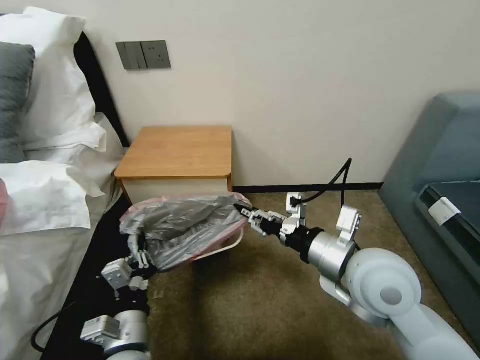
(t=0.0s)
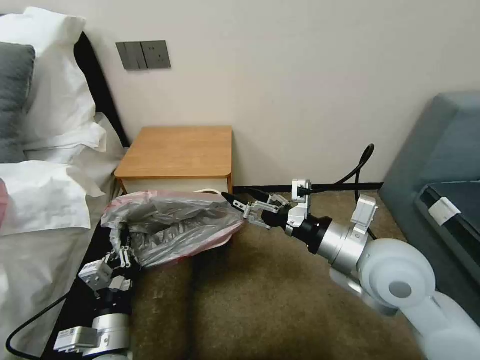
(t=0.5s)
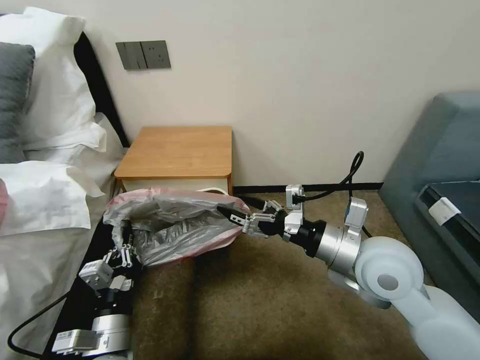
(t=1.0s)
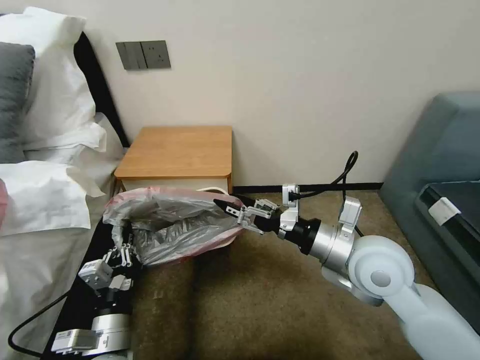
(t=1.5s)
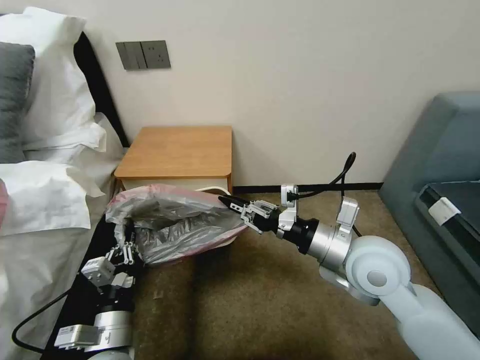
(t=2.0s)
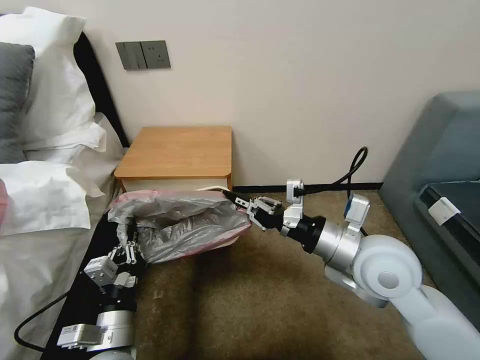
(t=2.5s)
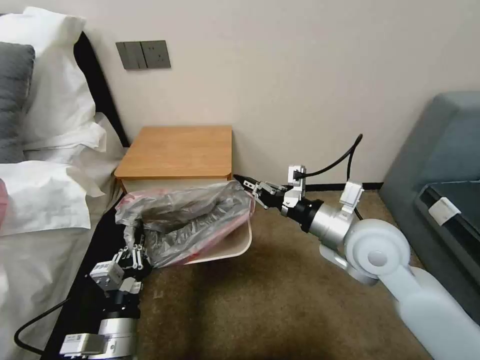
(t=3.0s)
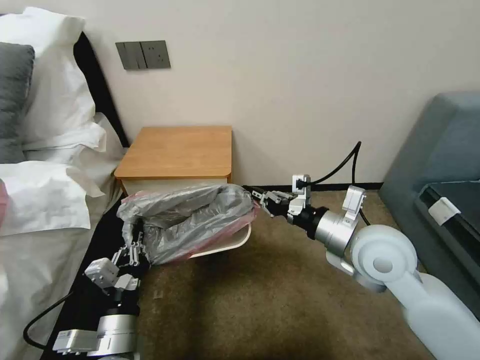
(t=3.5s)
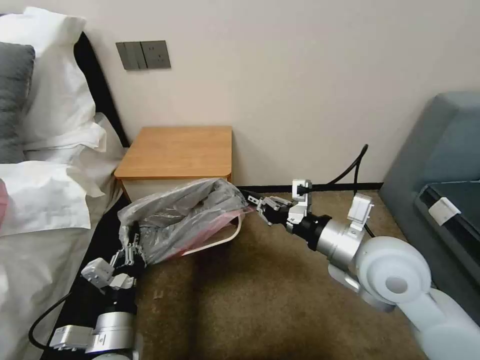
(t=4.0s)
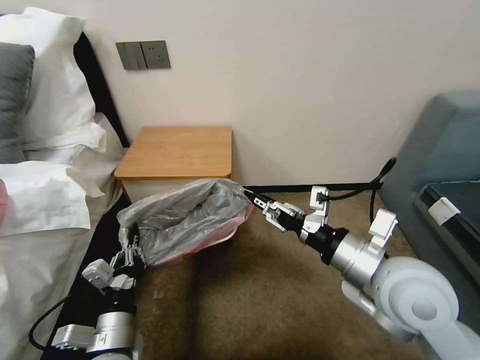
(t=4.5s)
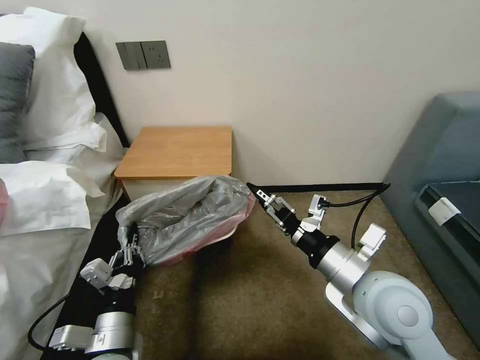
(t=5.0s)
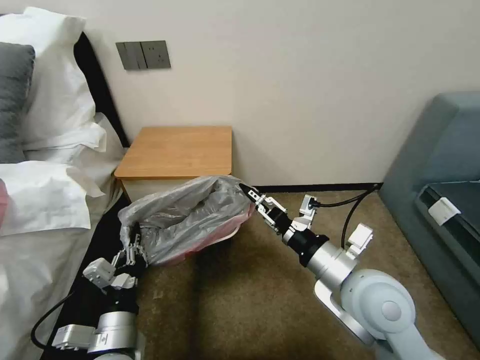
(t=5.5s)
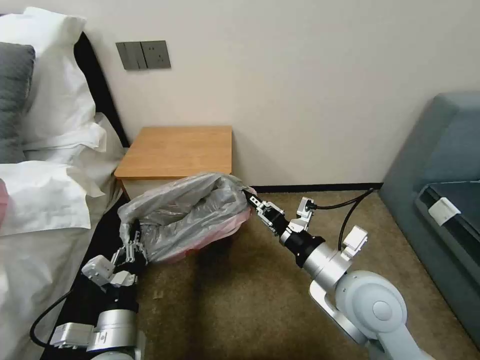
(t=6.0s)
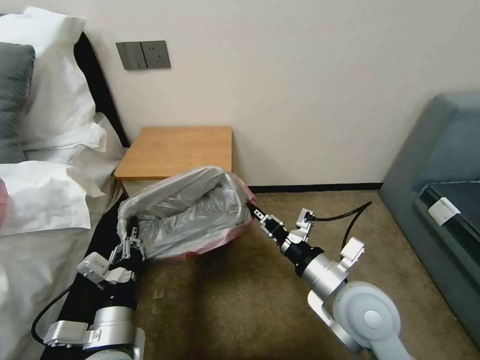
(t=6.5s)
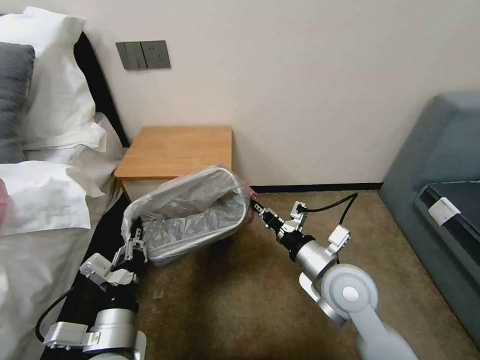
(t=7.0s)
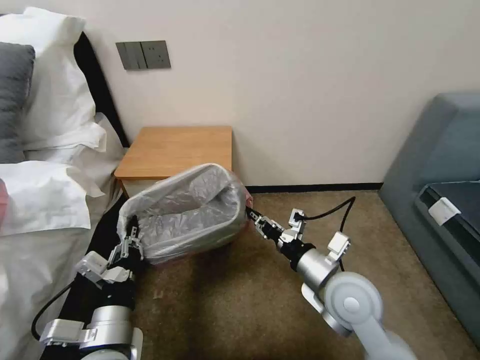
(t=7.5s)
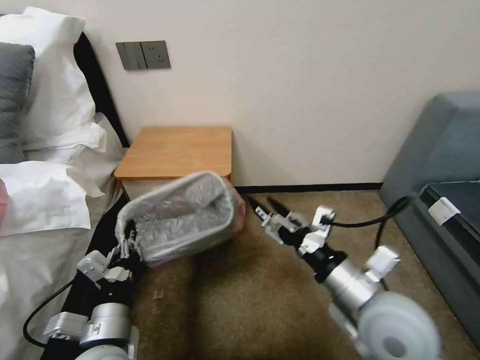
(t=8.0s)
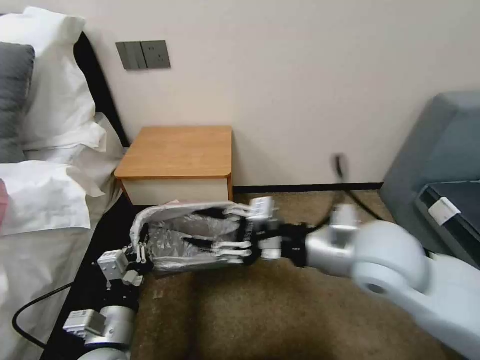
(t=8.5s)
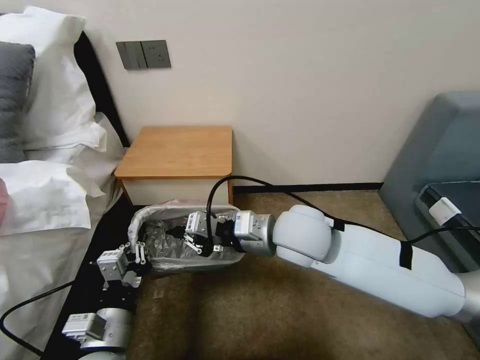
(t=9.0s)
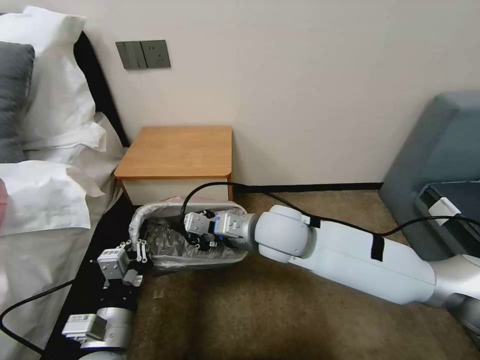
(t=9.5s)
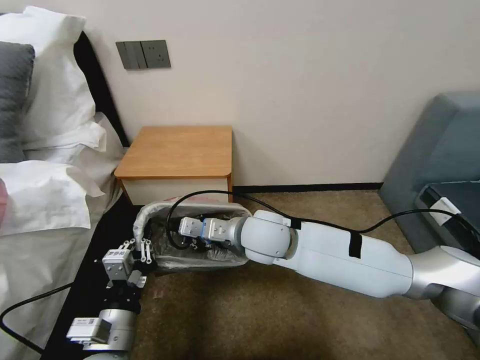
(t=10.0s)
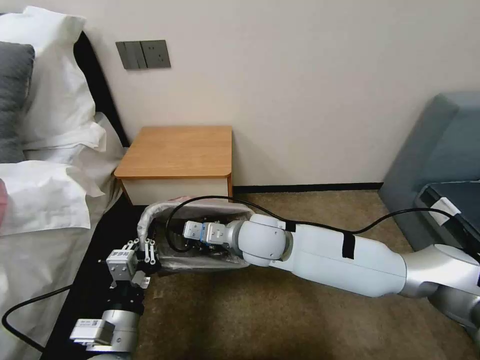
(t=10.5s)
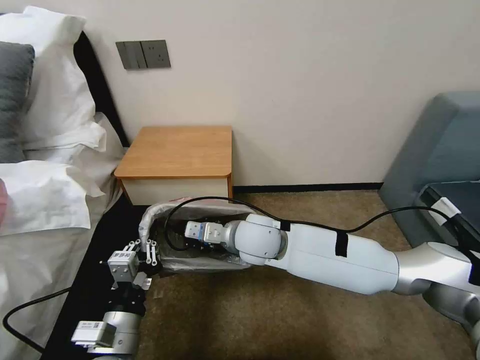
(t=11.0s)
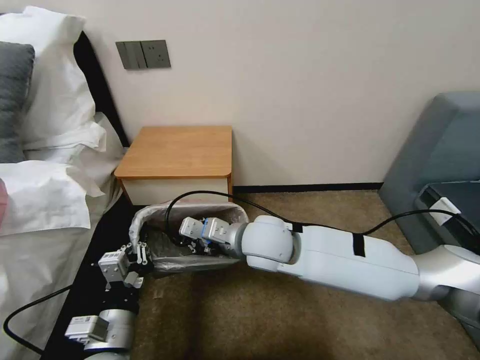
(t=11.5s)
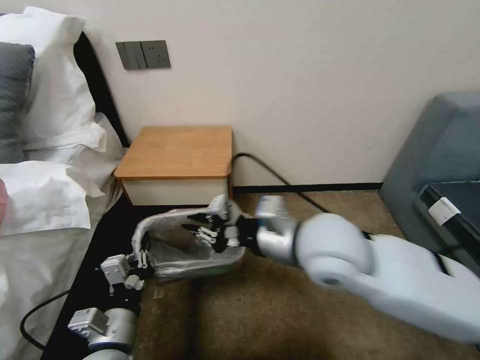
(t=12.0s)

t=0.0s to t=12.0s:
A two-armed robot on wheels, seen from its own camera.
Task of the whole recording: Pick up the garbage bag from the table and place it over the trash can.
t=0.0s to t=2.0s: The right gripper opens, then closes again.
t=2.0s to t=4.0s: There are only small adjustments of the grippers.
t=4.0s to t=6.0s: The right gripper shifts by about 5 cm, and opens, then closes again.
t=6.0s to t=8.0s: The right gripper opens up.
t=8.0s to t=10.0s: The right gripper travels to the left and forward by about 25 cm, and closes.
t=10.0s to t=12.0s: The right gripper shifts some 15 cm to the right, upward and backward.

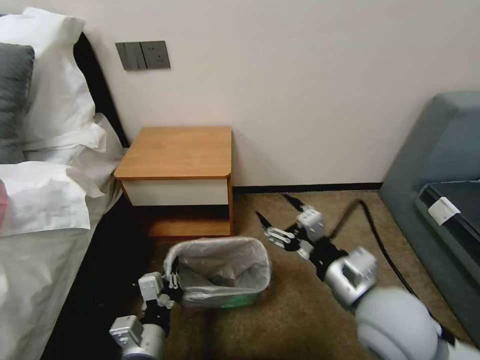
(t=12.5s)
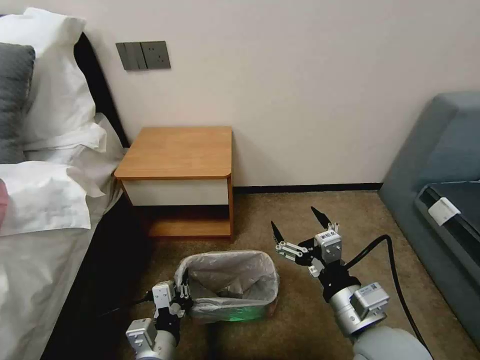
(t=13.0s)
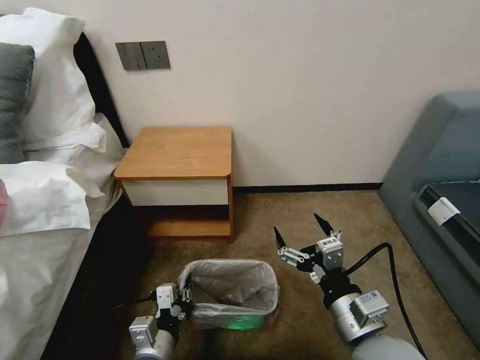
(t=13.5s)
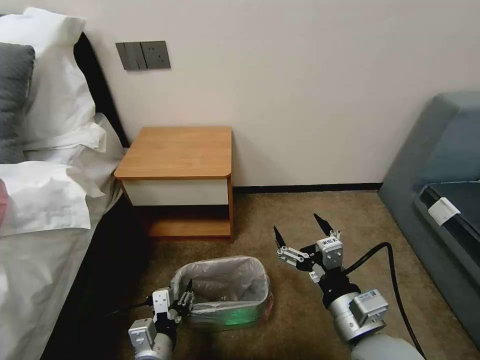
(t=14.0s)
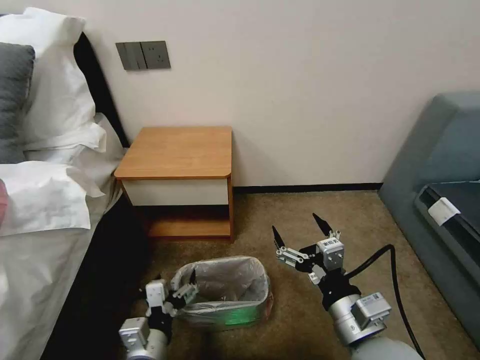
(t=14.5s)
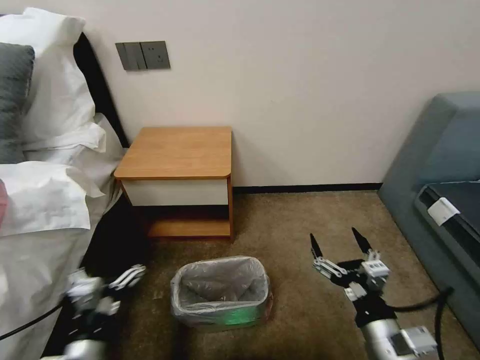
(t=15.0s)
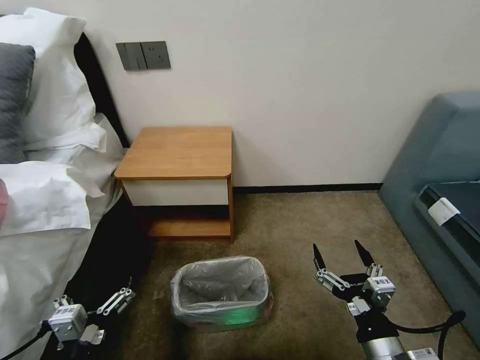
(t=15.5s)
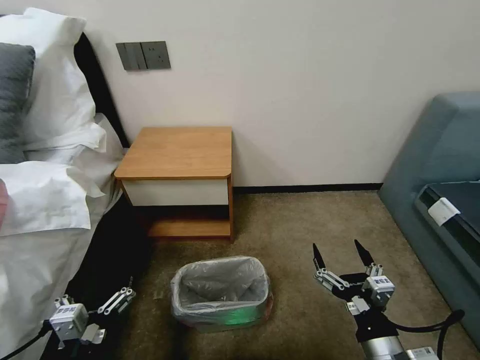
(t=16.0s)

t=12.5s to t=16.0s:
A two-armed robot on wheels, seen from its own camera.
Task of the whole recording: Pick up the garbage bag from the table and place it over the trash can.
t=12.5s to t=14.5s: The right gripper heads backward, covering roughly 5 cm. The left gripper opens its fingers.
t=14.5s to t=16.0s: The right gripper moves downward, approximately 5 cm, while the left gripper travels to the left and backward by roughly 10 cm.
